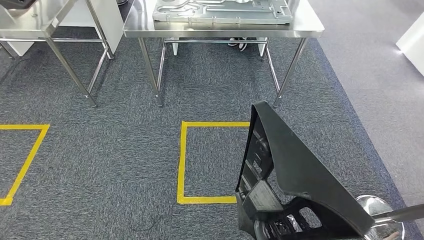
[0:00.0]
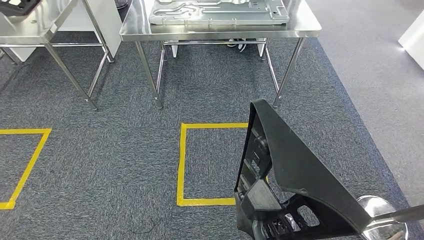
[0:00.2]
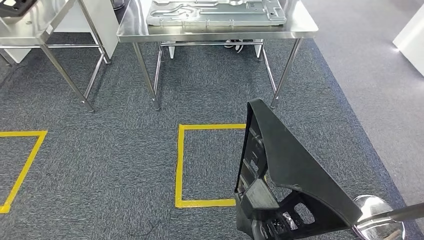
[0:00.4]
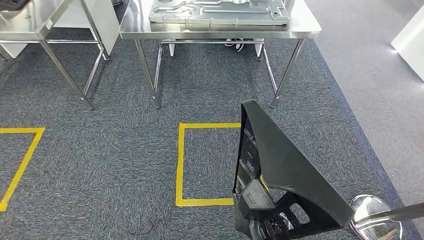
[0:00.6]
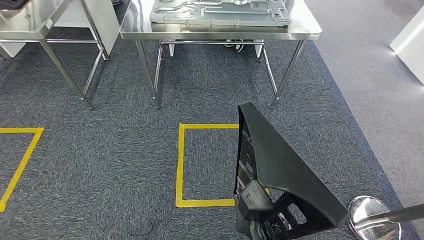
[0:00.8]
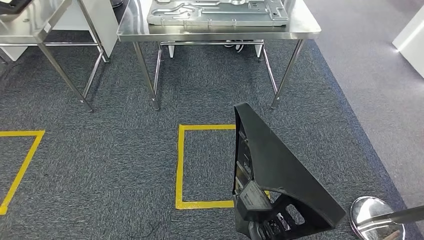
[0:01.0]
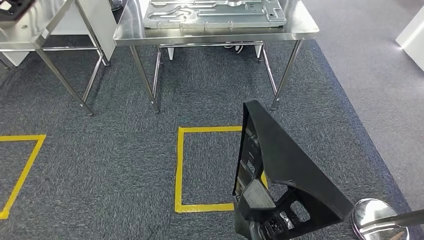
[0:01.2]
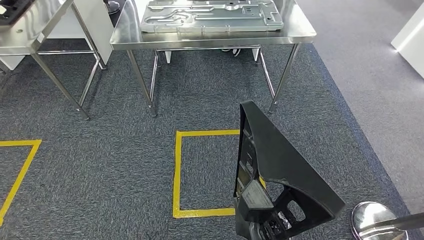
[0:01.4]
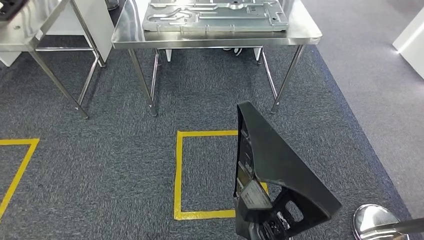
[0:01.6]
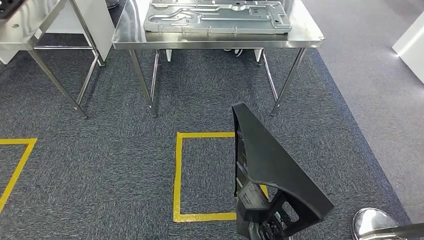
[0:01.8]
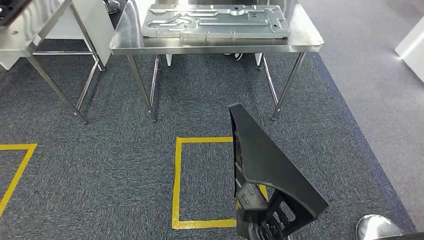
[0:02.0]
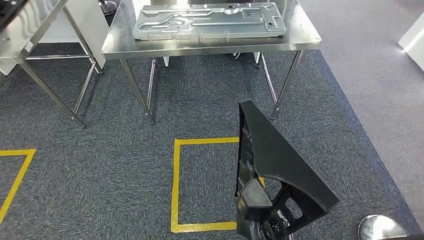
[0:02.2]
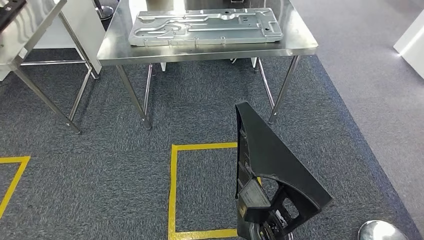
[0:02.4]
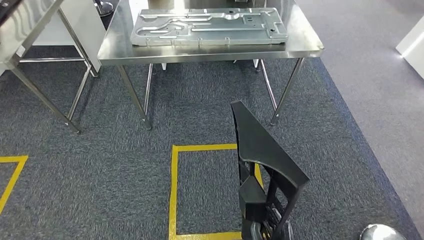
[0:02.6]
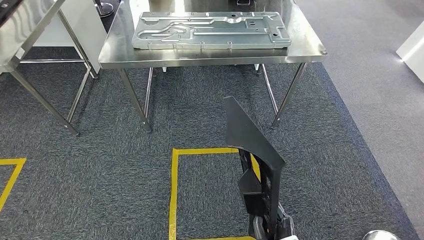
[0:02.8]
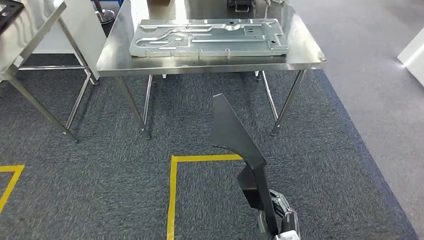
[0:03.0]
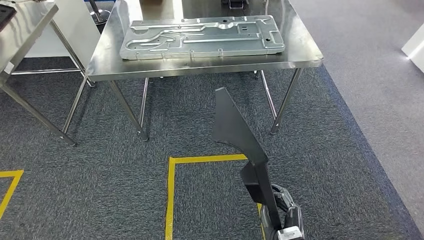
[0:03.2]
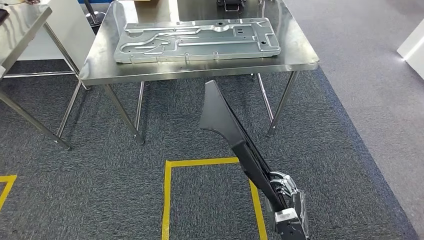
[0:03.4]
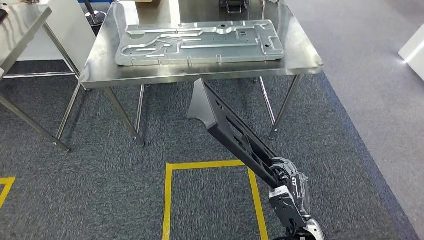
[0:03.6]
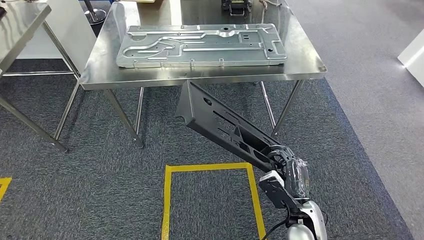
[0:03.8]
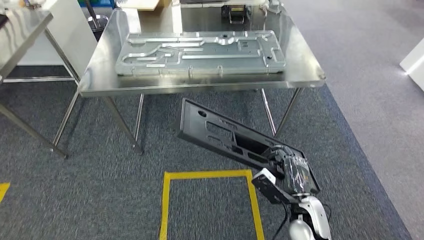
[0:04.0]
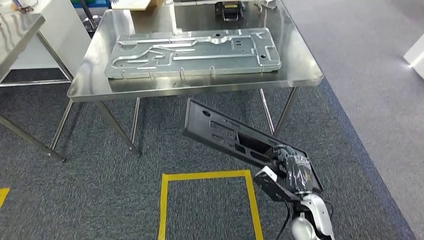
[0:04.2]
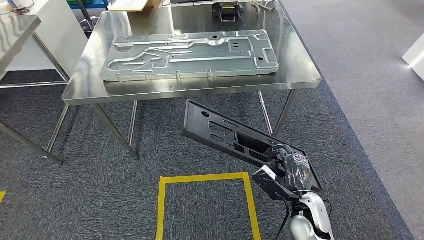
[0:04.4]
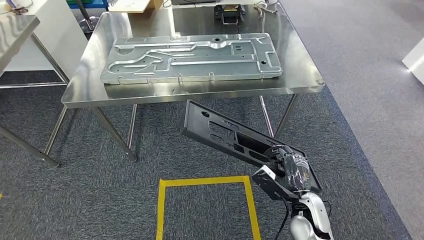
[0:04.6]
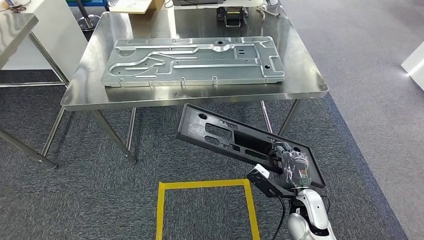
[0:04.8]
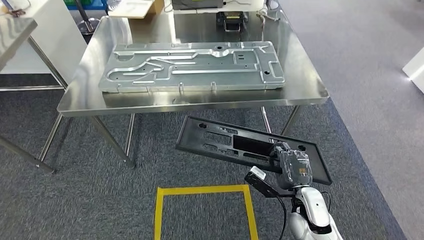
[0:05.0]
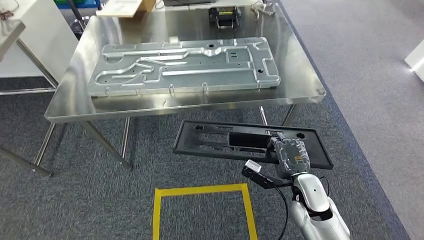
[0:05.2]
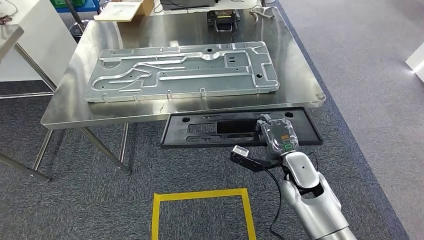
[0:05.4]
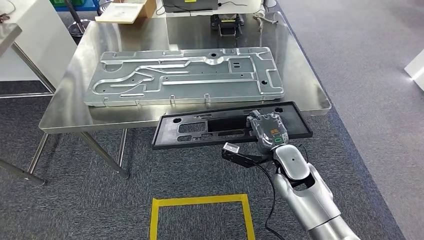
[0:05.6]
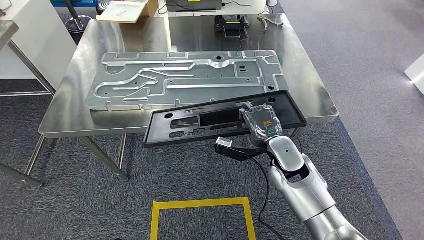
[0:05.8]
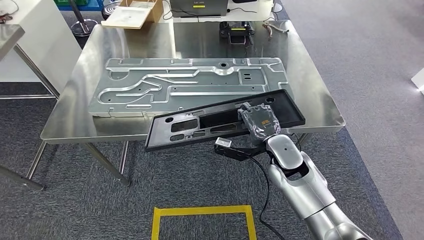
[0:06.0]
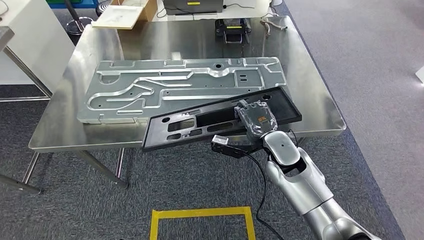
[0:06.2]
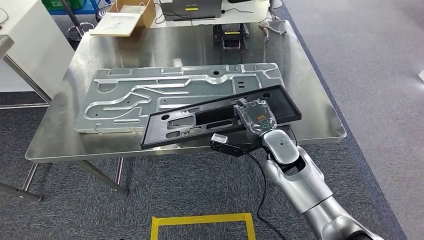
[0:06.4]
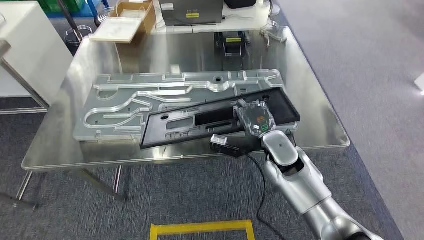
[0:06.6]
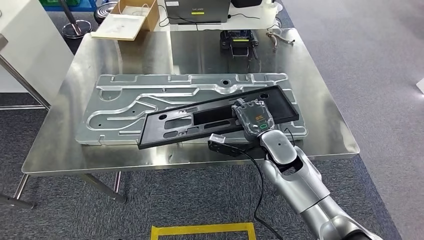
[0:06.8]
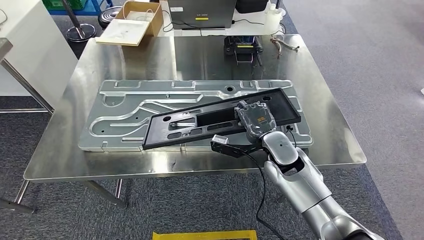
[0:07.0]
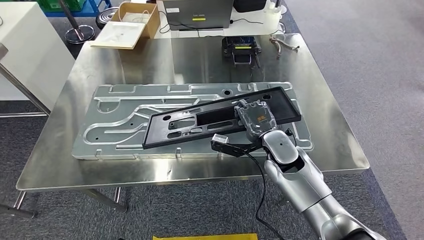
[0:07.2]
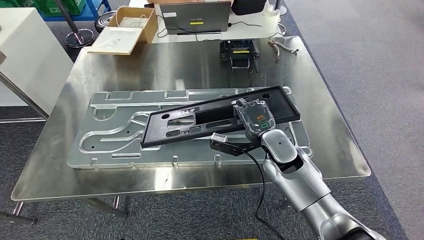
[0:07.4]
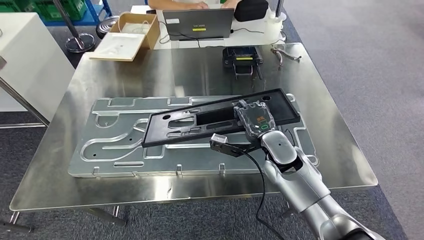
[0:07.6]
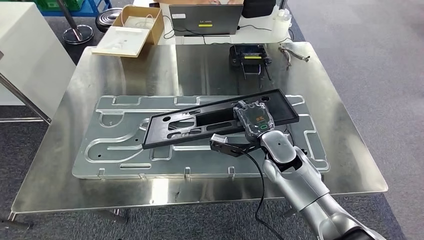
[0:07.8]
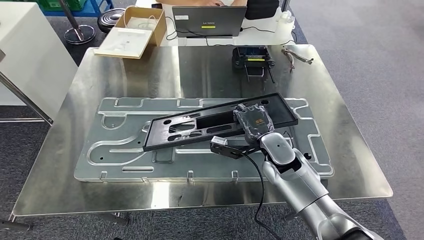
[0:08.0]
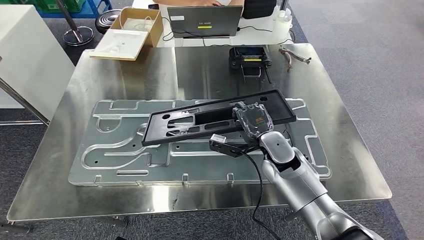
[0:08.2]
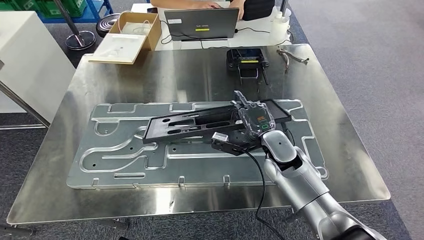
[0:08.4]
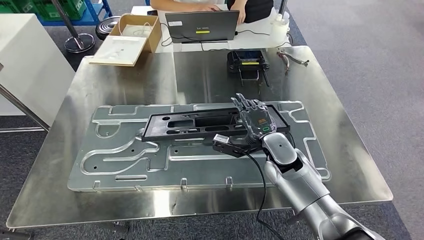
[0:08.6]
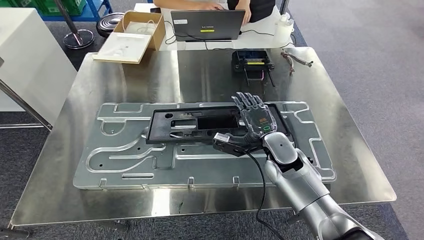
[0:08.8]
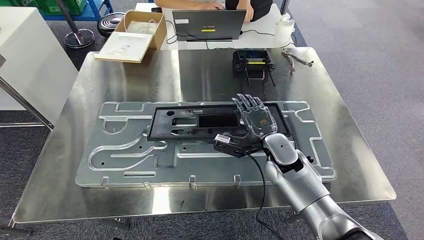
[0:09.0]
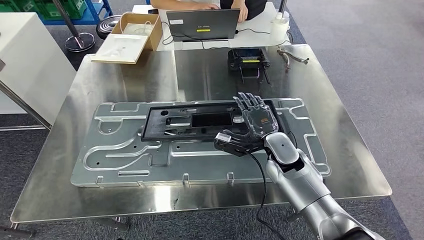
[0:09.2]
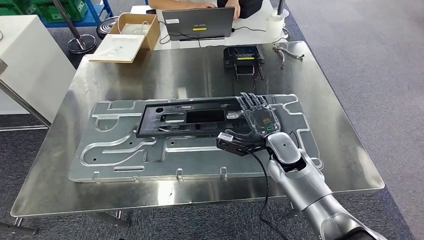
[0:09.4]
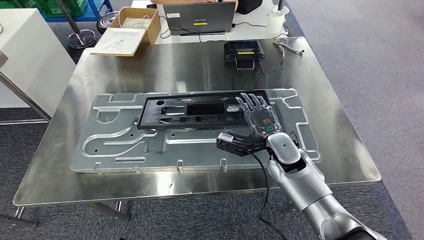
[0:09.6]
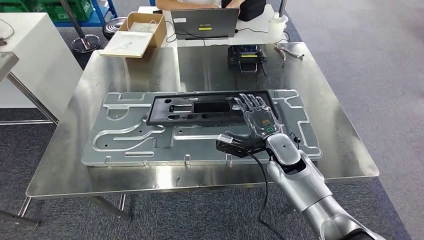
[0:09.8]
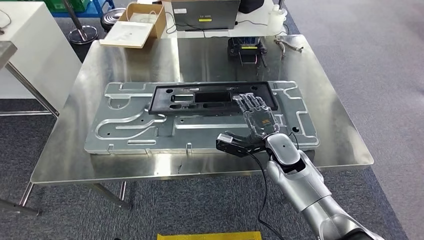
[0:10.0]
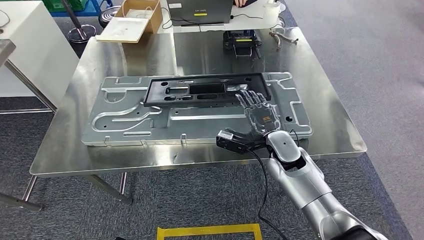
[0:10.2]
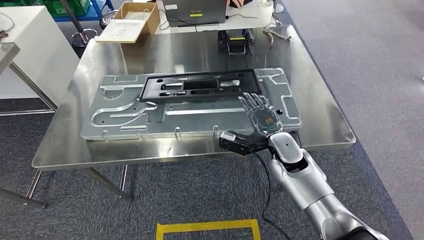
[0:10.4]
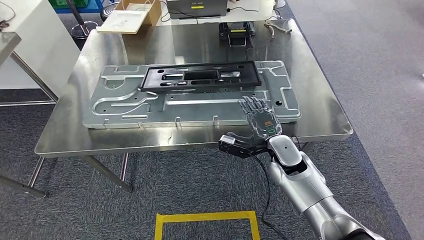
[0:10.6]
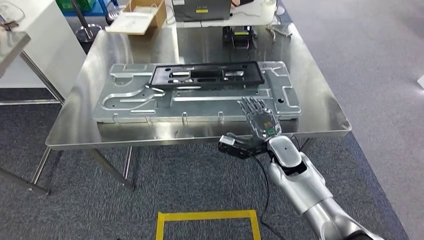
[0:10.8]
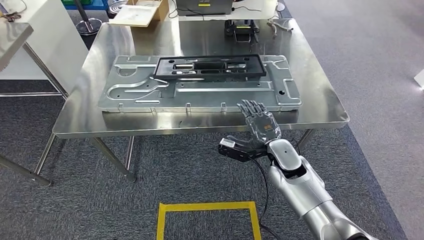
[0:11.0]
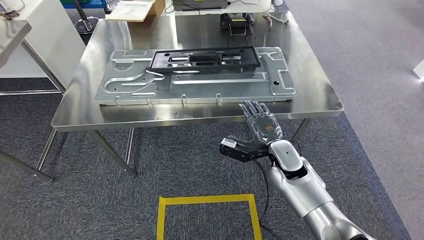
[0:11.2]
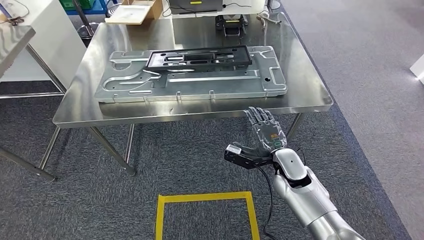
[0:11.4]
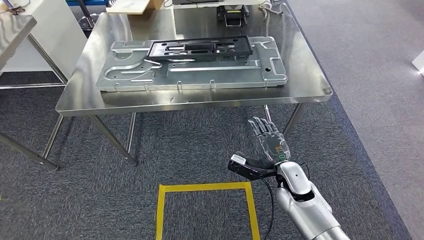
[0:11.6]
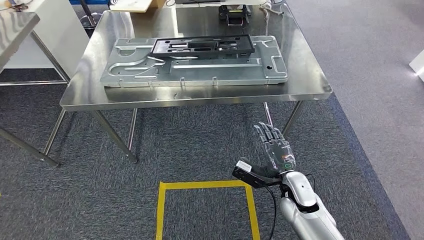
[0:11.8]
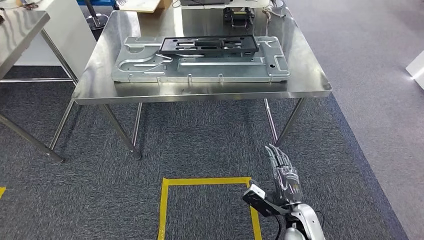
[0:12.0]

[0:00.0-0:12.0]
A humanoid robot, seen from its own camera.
Step, 0:00.0 to 0:06.0: Move the large material to the front of the workbench.

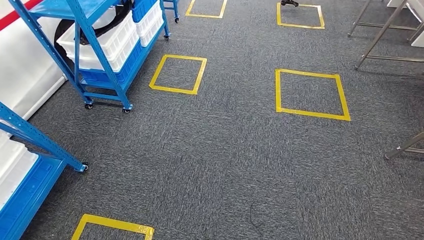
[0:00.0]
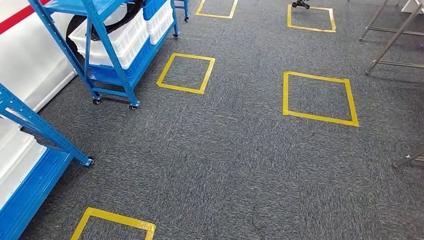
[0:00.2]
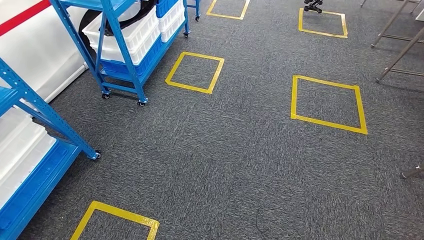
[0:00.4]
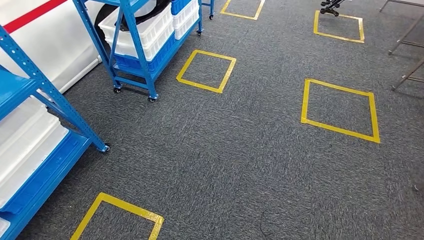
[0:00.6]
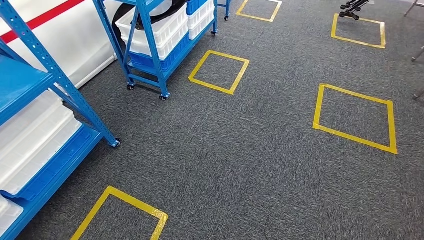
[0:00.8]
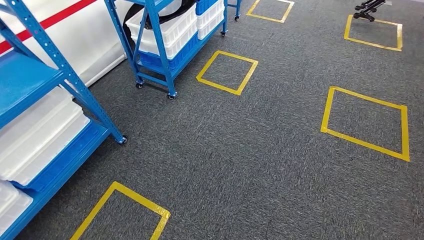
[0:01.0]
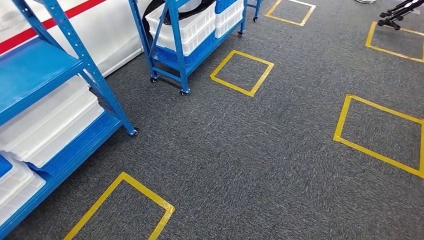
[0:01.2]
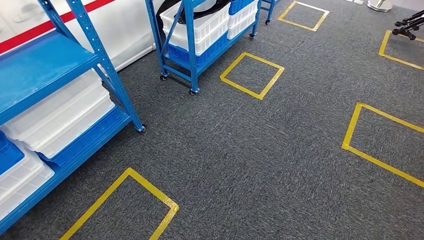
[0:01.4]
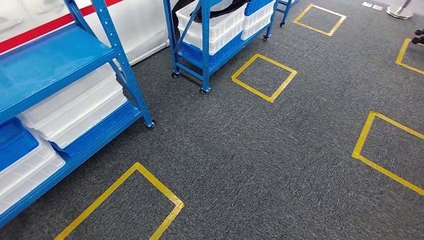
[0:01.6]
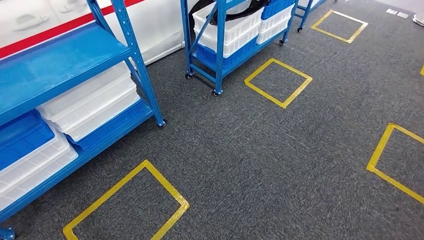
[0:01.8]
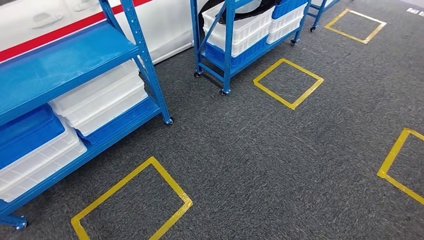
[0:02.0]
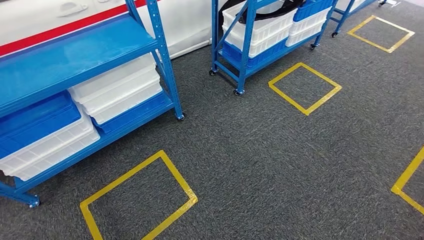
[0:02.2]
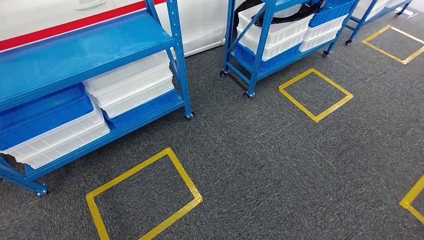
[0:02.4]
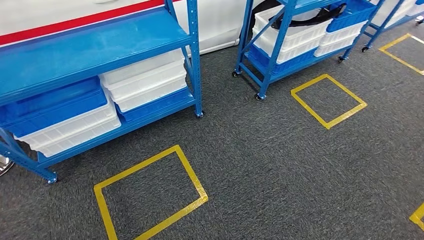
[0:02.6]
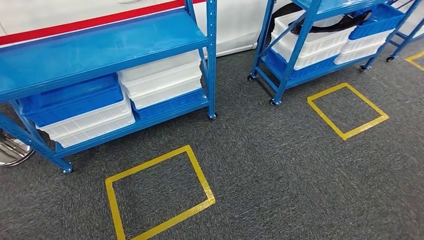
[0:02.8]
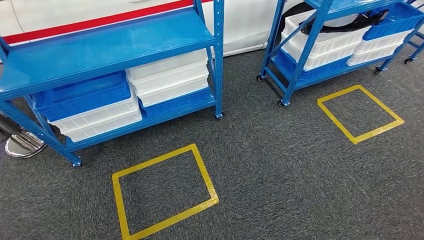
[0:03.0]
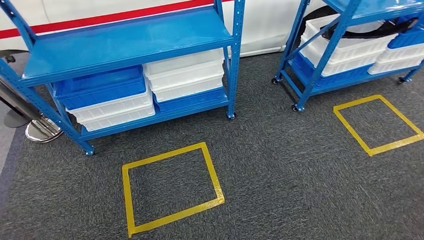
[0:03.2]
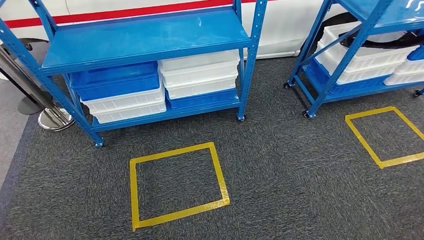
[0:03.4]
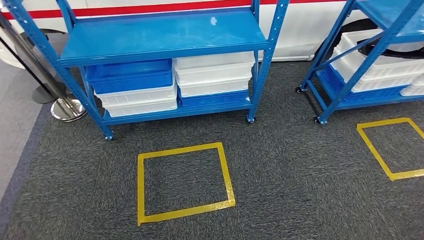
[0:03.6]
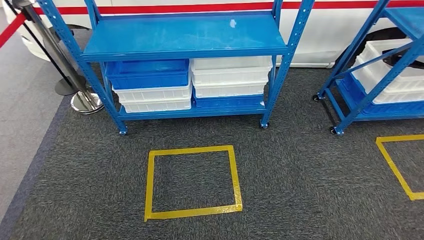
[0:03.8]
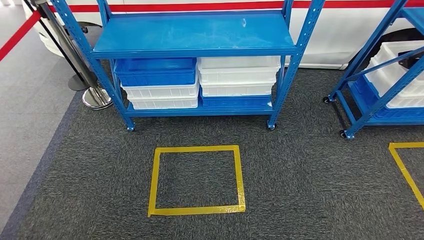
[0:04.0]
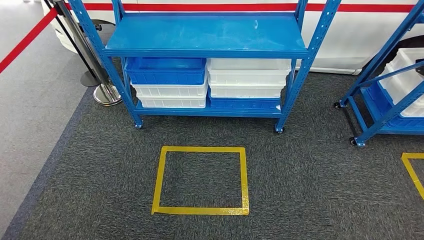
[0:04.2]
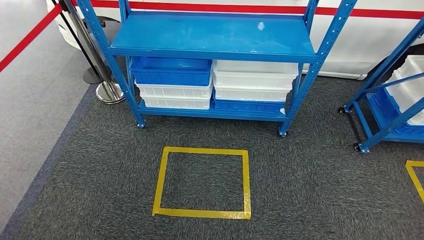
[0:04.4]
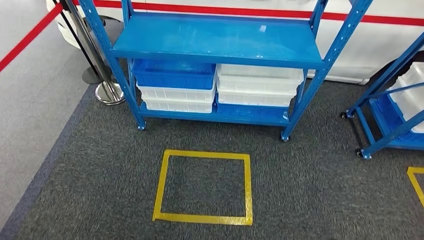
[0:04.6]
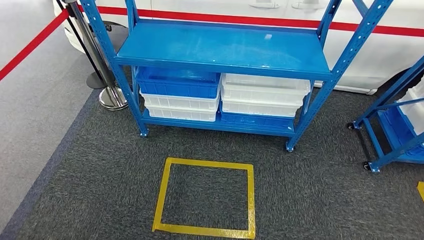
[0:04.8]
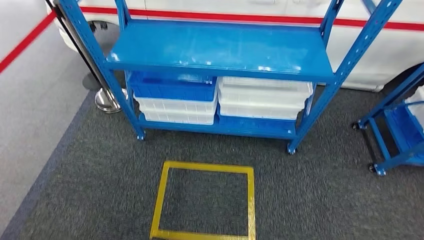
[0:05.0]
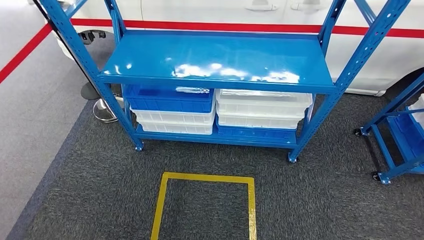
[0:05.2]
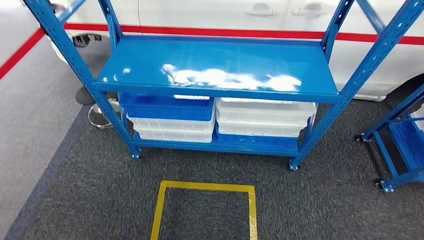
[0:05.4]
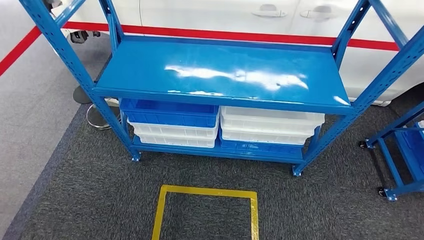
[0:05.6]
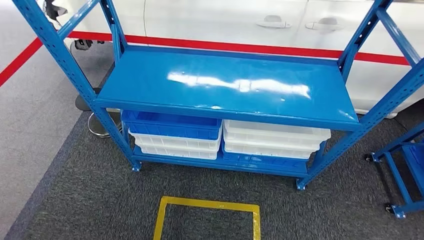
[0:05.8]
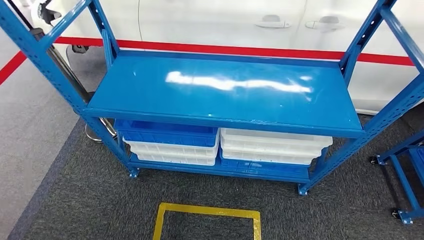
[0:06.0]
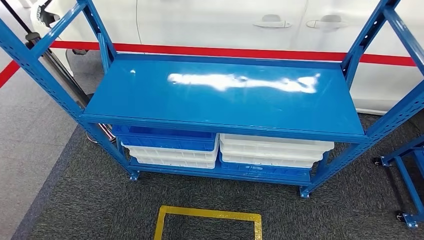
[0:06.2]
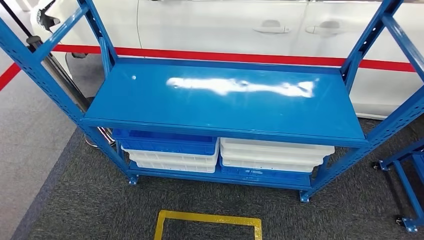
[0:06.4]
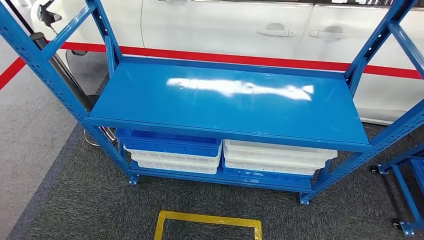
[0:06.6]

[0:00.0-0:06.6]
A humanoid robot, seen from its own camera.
Step, 0:00.0 to 0:06.6: Move to the initial position of the shelf.
